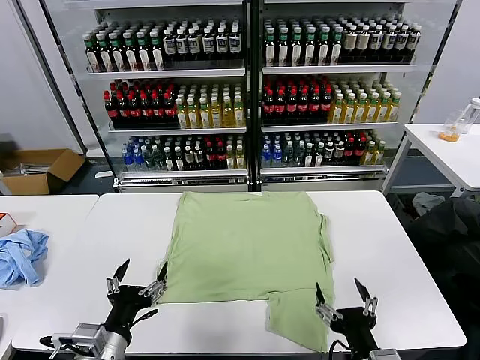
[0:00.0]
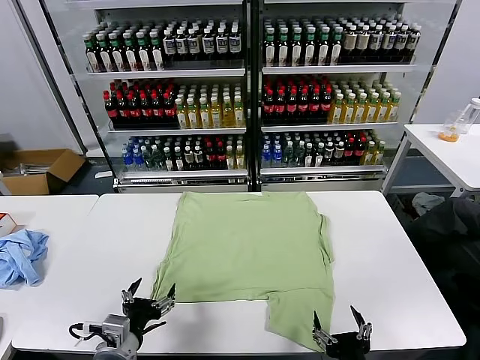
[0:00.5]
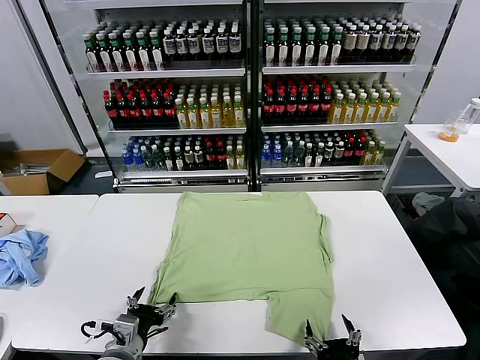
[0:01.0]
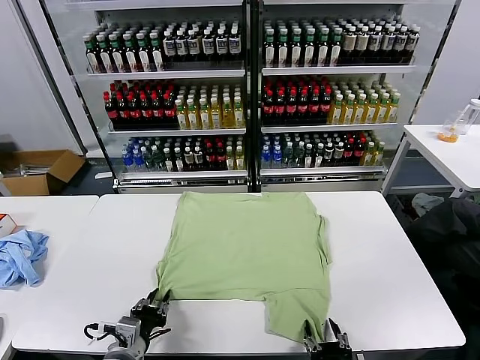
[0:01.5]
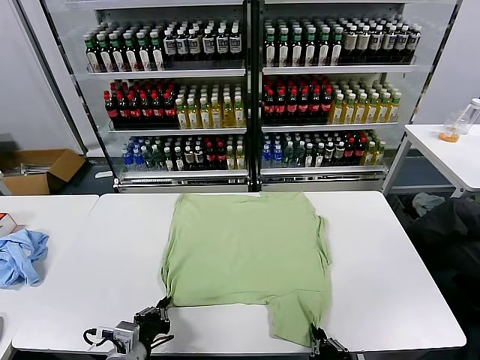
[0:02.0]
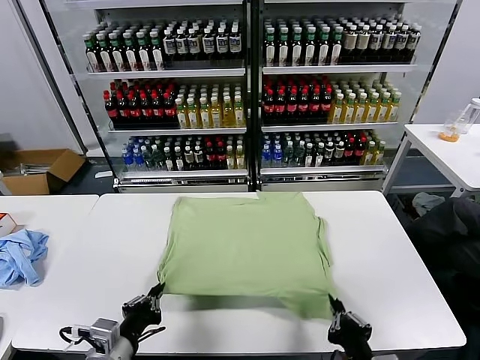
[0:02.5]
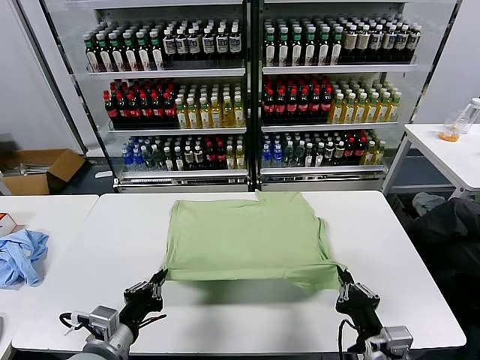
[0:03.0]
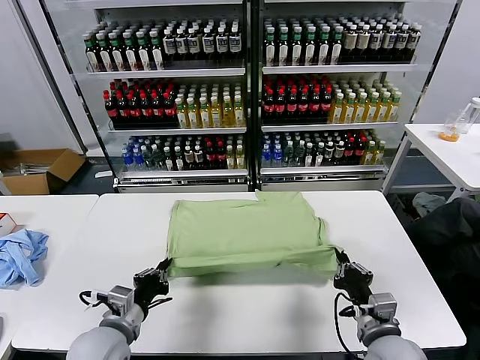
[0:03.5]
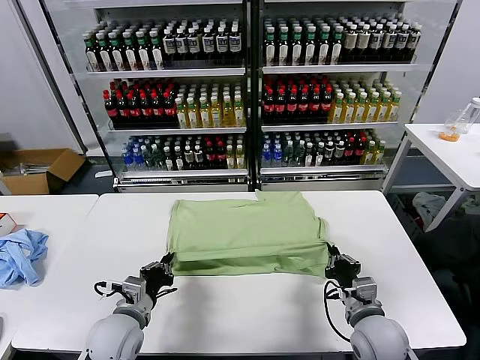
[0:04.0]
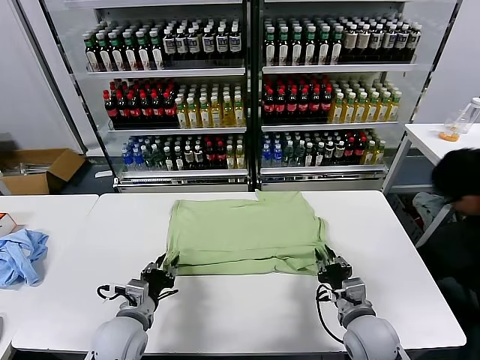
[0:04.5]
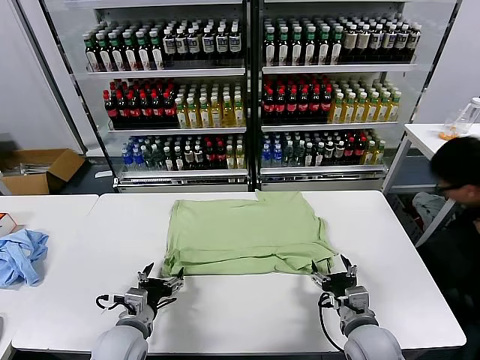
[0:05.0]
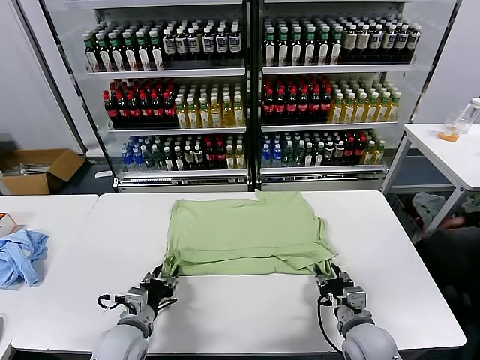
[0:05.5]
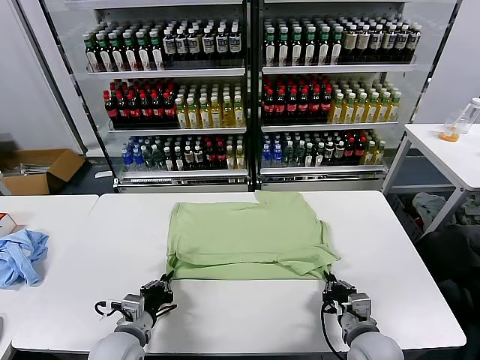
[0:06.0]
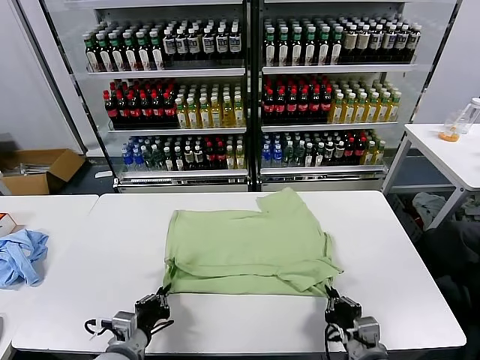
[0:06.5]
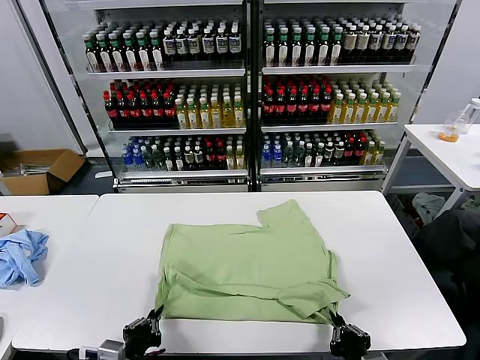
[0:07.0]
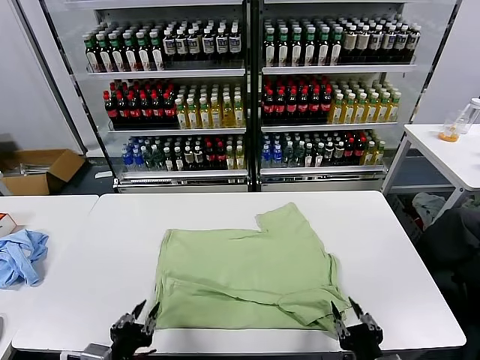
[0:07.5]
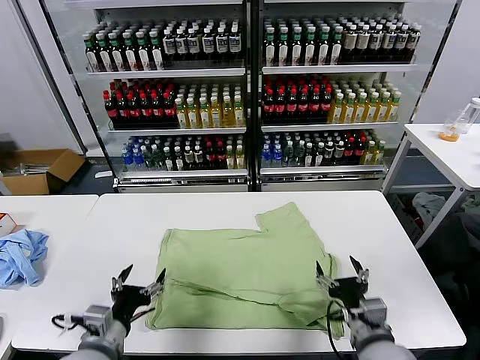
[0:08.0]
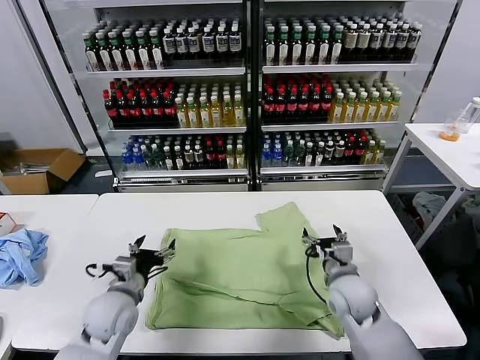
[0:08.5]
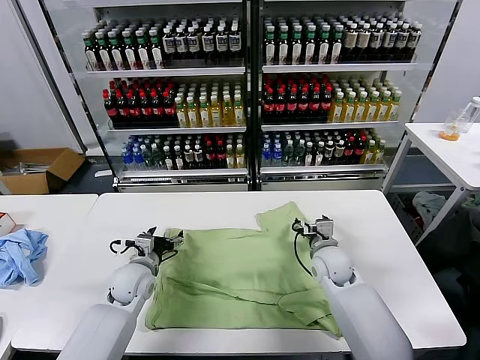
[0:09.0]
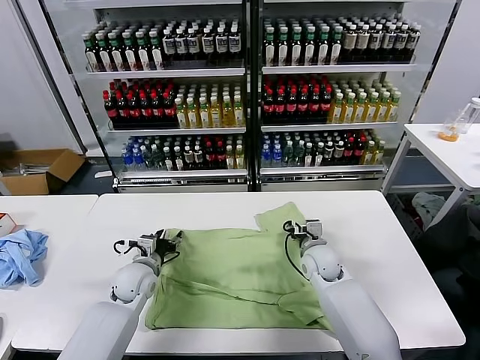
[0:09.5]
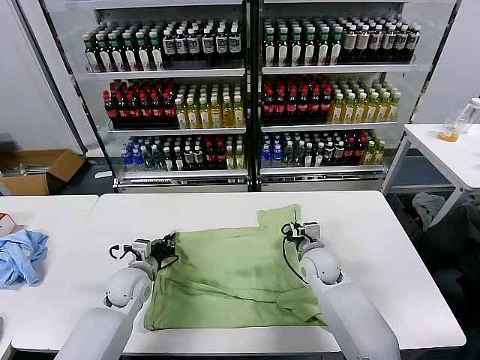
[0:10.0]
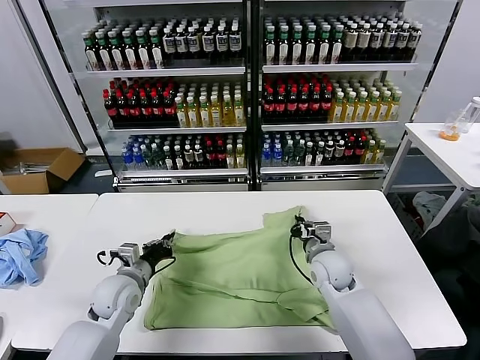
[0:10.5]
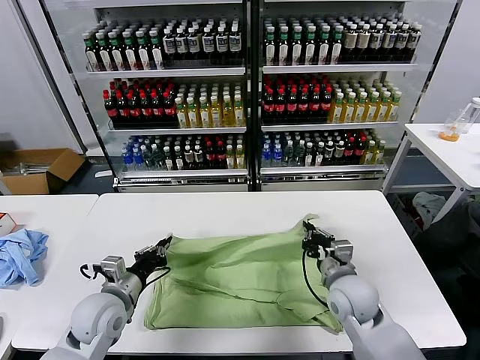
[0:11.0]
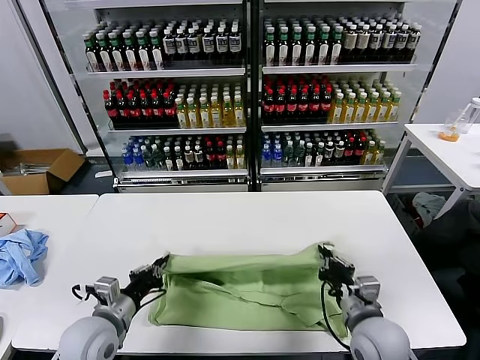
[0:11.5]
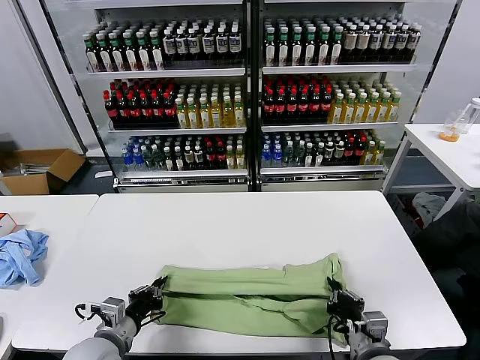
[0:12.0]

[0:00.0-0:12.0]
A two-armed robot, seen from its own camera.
Task of the whole recording: fold and organize the clothes.
Step, 0.0 to 2.0 s: use both grippers simultaneously to clamp the lower edge of the clothing fabric.
Step, 2.5 to 4.5 s: use both grippers to drag the lower edge of the fabric forward and fold it over the upper edge.
Step, 5.0 to 7.0 s: Drag the clothes downward with both gripper.
Step, 7.5 to 10.0 s: use both grippers simultaneously to clamp the upper edge of the clothing fabric.
2.0 to 4.0 s: The left gripper travels forward by approximately 10 cm. Meanwhile the right gripper moves forward, approximately 15 cm.
4.0 to 6.0 s: The left gripper opens, then closes again. The right gripper opens, then closes once more.
6.0 to 8.0 s: The right gripper reaches approximately 10 cm backward, then returns, and opens up, while the left gripper is displaced upward by approximately 5 cm, reaches some 10 cm backward, then returns, and opens up.
8.0 to 10.0 s: Both grippers move forward, some 20 cm. The right gripper closes; the left gripper closes.
10.0 to 12.0 s: The right gripper goes roughly 25 cm backward. The left gripper heads backward, covering approximately 15 cm.

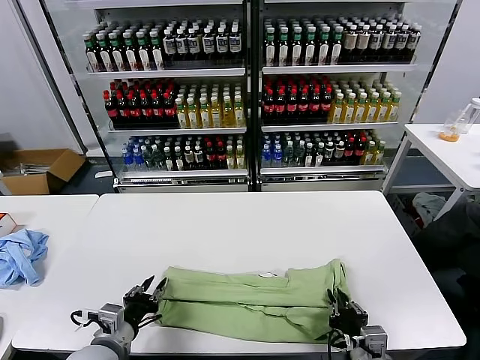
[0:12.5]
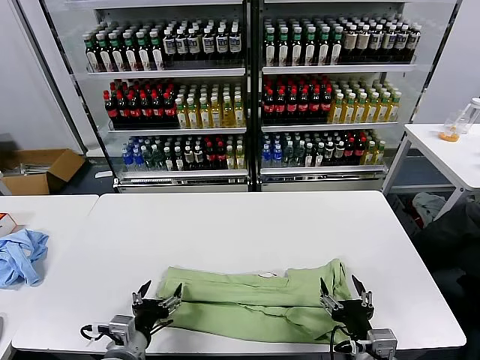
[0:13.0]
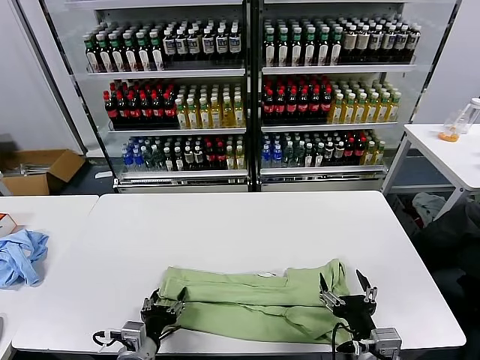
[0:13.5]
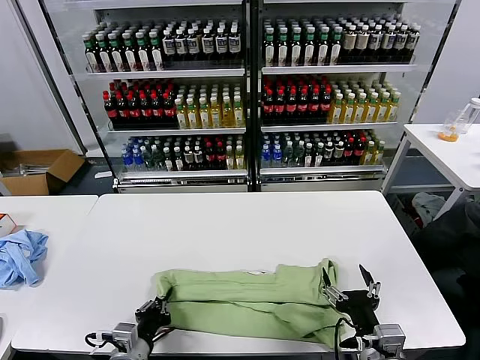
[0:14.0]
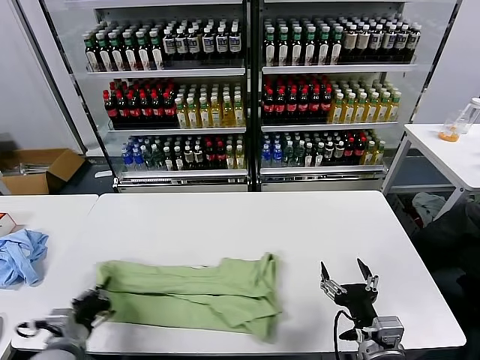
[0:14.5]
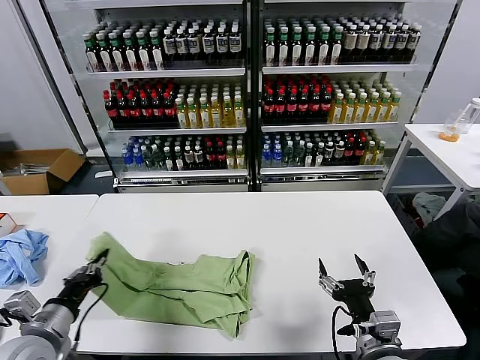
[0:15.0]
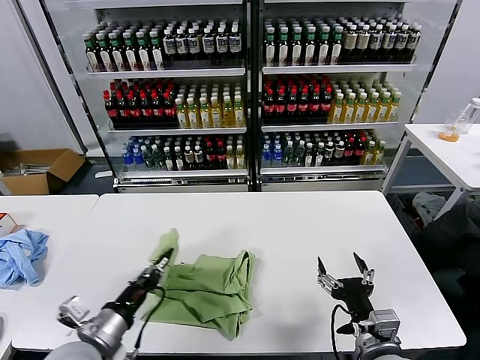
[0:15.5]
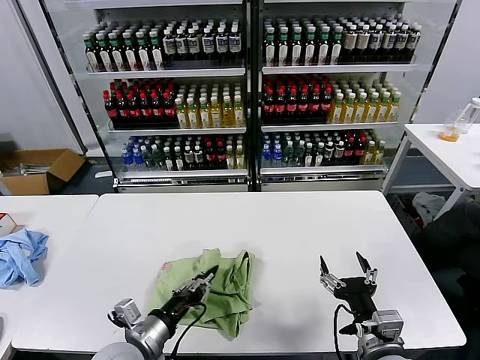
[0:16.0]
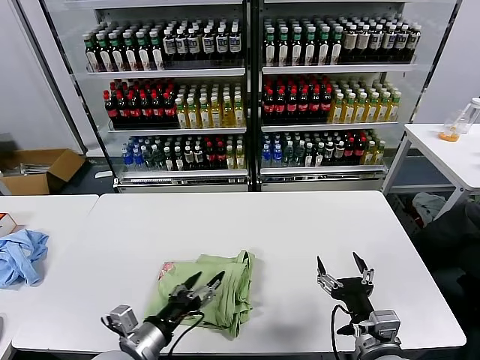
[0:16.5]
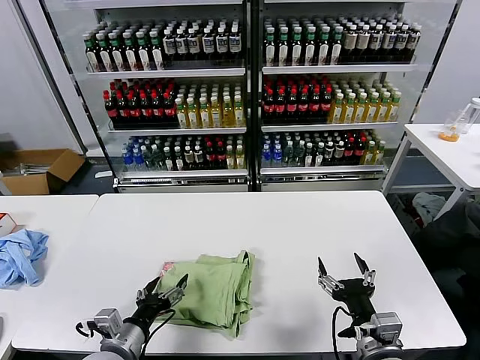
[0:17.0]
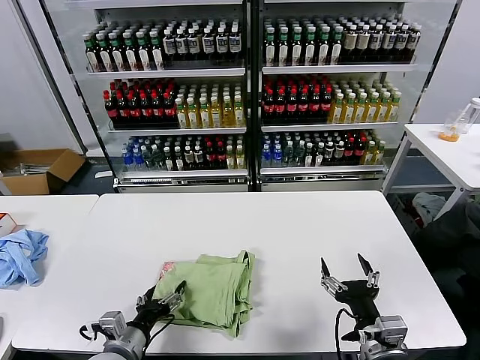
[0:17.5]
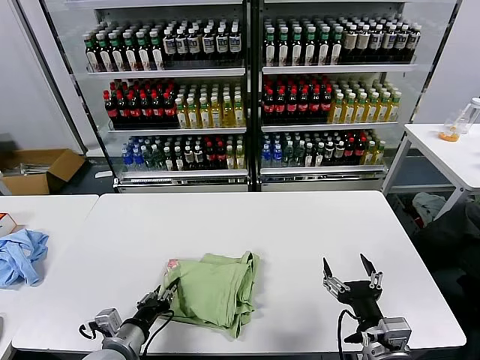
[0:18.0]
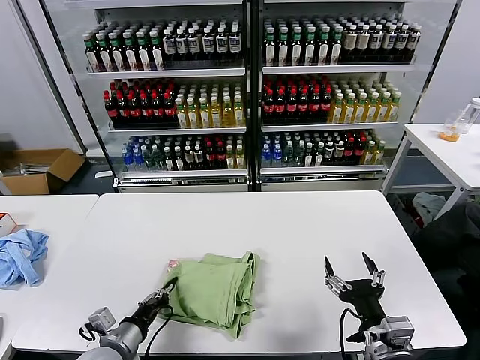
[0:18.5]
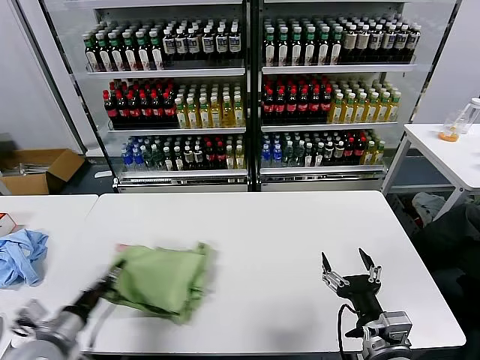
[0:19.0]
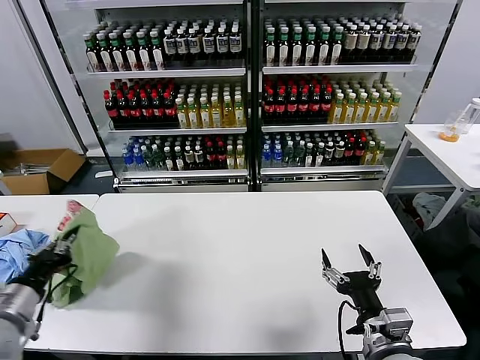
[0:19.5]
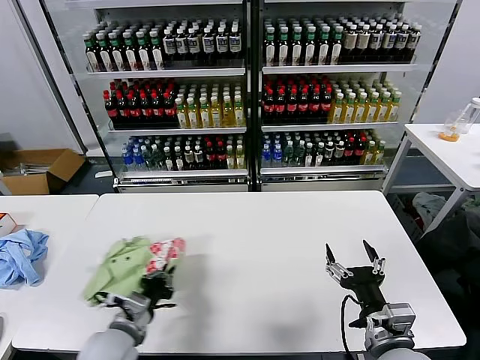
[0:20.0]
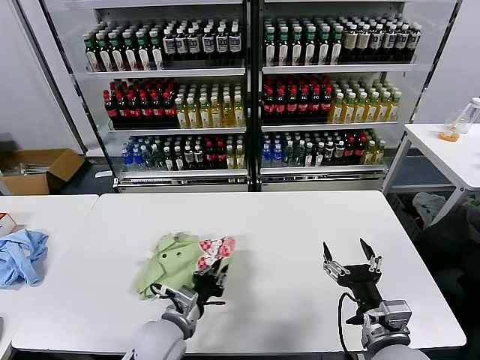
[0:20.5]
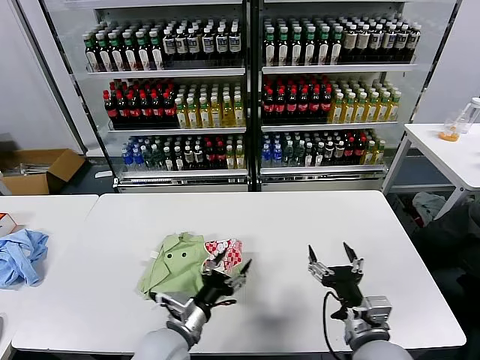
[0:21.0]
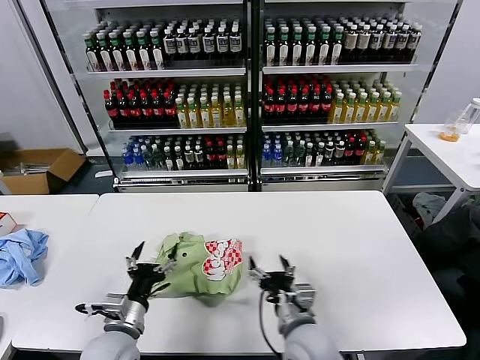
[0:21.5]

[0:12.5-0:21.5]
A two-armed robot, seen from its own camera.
Task of the whole recording: fold and organize the clothes.
Step, 13.0 to 13.5 s: use the left gripper to clamp the left edge of the fabric.
Step, 14.0 to 16.0 s: use the left gripper to drag the left edge of the fabric to the left and folds it over the right edge.
Step, 16.5 to 20.5 s: Flip the folded clothes over with left gripper.
12.5 to 14.5 s: The right gripper opens its fingers. The left gripper travels to the left by approximately 10 cm, and opens, then closes again.
14.5 to 17.0 s: The left gripper travels to the right by approximately 10 cm, and opens.
17.0 to 19.5 s: The left gripper goes about 20 cm to the left and upward, and closes.
19.5 to 21.5 s: The left gripper shifts approximately 20 cm to the right and downward, and opens up, while the right gripper is displaced to the left, forward and downward by about 15 cm.

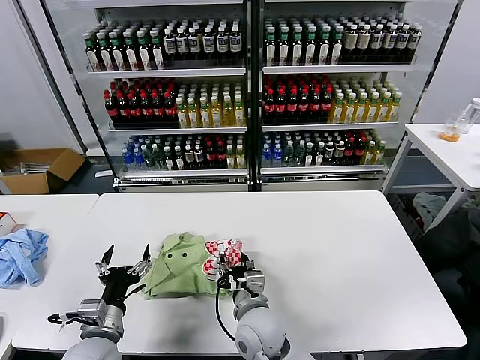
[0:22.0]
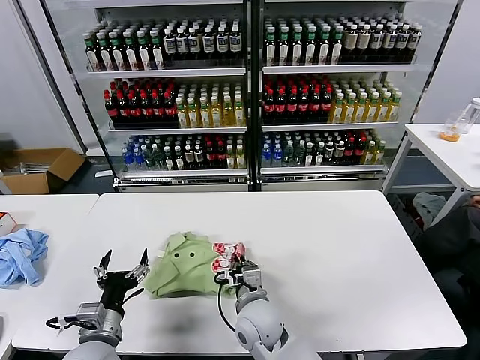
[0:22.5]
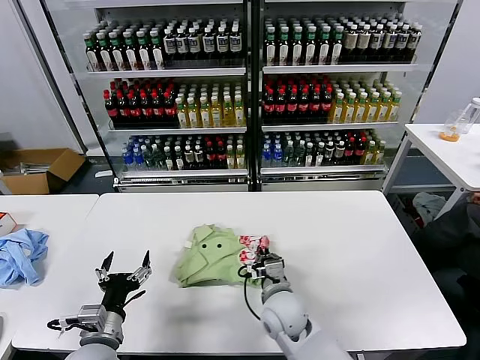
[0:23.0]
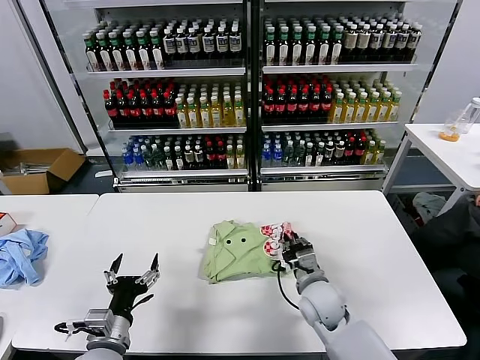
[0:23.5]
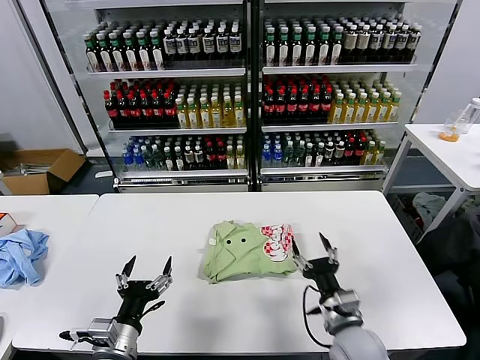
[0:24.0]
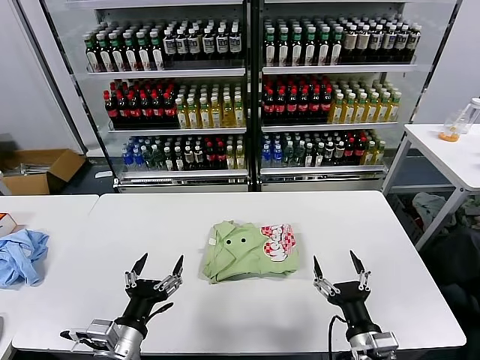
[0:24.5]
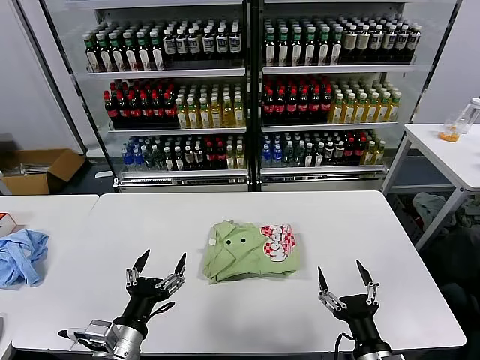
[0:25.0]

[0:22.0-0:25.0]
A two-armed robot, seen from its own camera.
Task of the whole recording: fold and organize the clothes.
Step, 22.0 to 23.5 s: Drag the clothes to the center of the table.
22.0 to 23.5 s: The right gripper goes approximately 15 cm to the right and forward, and closes its fingers.
23.5 to 25.0 s: The right gripper is displaced backward by some 20 cm, and opens, while the left gripper travels upward by roughly 5 cm.

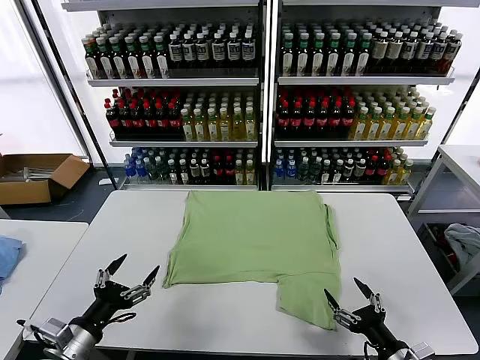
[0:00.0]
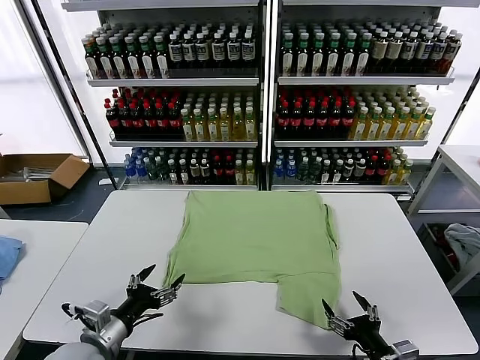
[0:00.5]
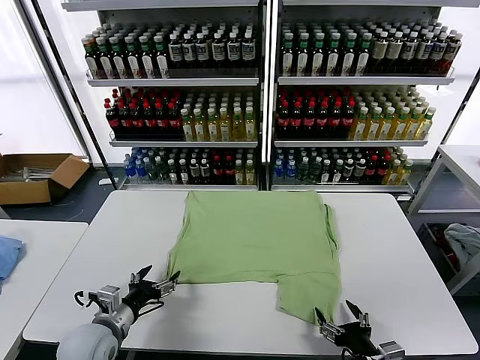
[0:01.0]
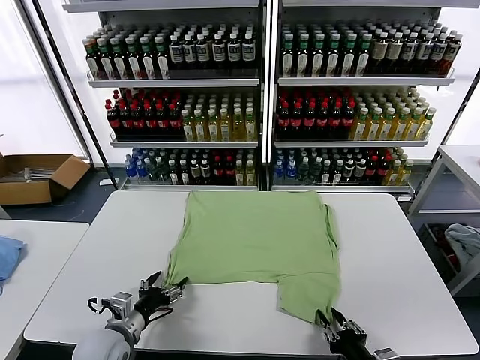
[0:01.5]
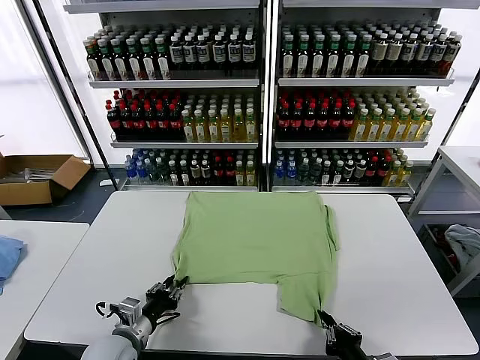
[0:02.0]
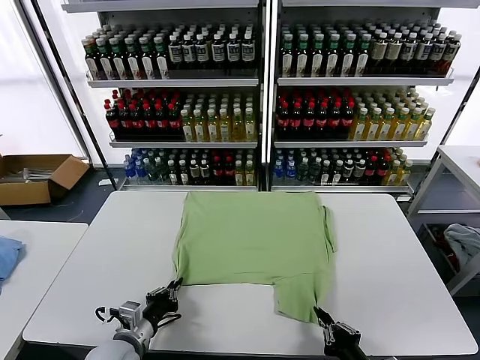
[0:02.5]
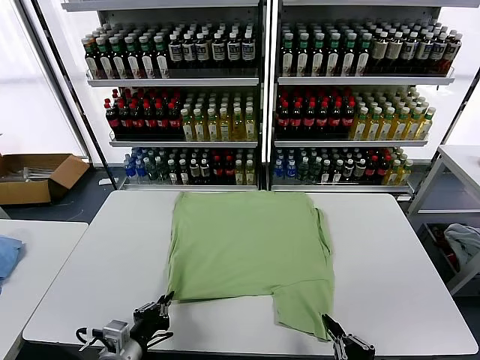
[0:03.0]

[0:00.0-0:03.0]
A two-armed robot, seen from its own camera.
Task of the whole recording: fold and organize the clothes.
1.5 to 3.0 s: The two grippers go roughly 10 cm backward. The left gripper closes up.
